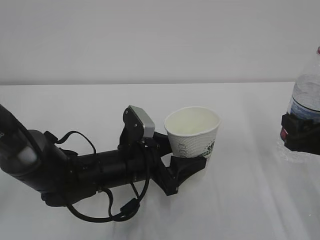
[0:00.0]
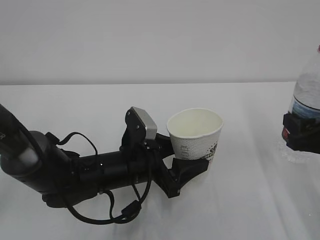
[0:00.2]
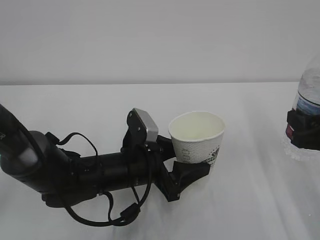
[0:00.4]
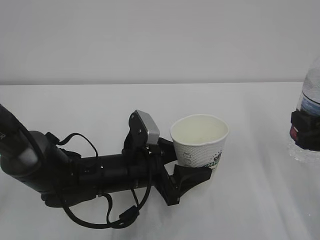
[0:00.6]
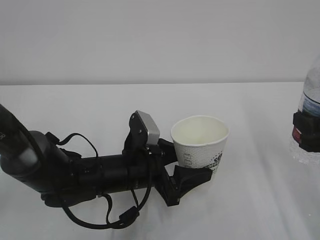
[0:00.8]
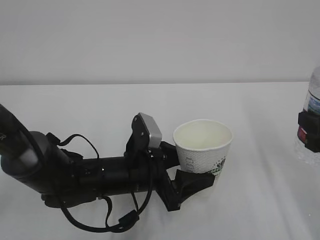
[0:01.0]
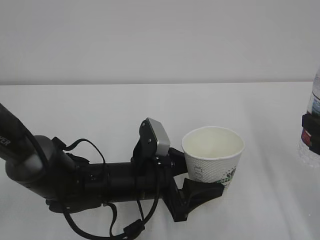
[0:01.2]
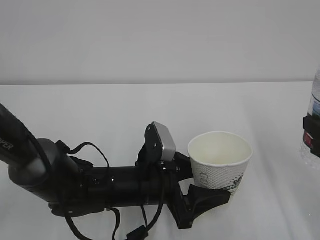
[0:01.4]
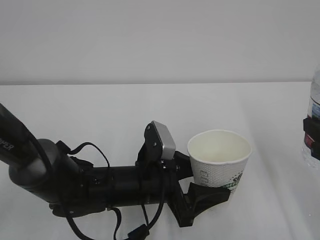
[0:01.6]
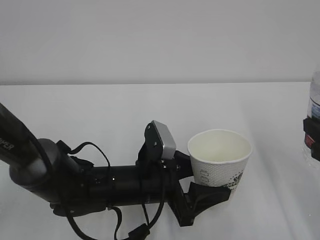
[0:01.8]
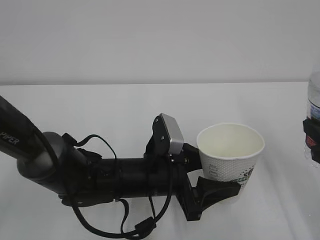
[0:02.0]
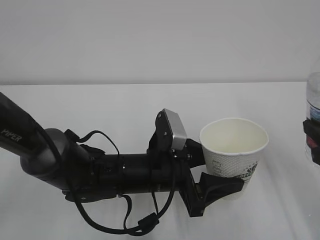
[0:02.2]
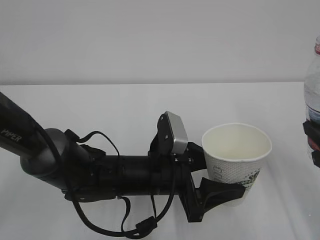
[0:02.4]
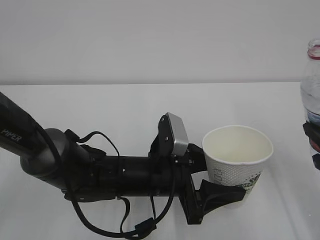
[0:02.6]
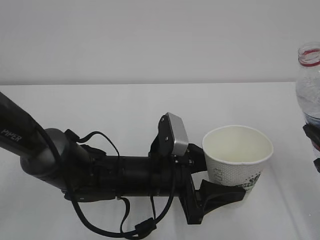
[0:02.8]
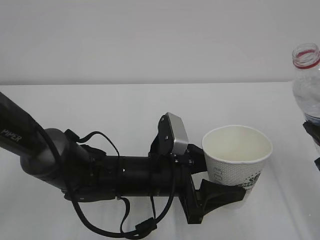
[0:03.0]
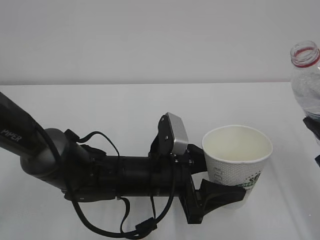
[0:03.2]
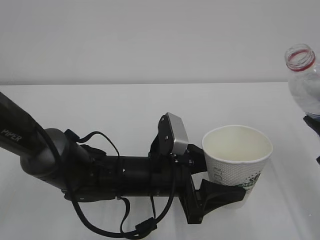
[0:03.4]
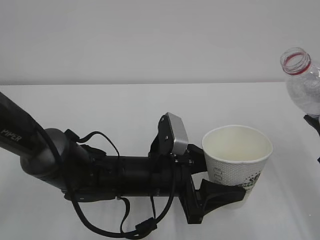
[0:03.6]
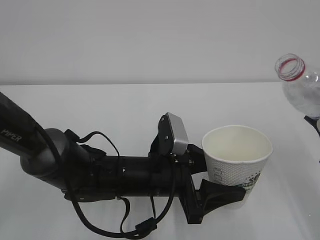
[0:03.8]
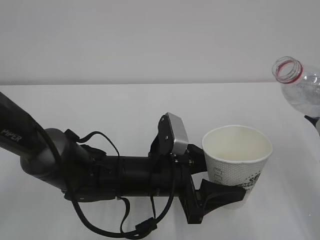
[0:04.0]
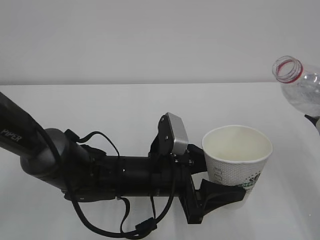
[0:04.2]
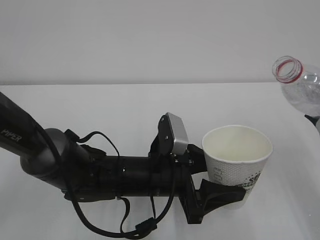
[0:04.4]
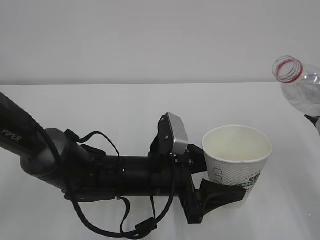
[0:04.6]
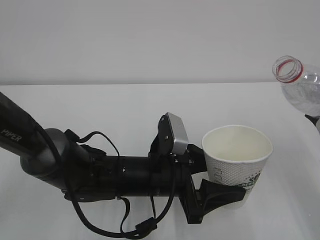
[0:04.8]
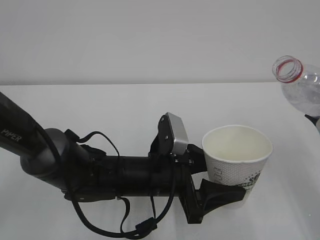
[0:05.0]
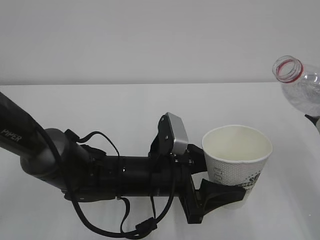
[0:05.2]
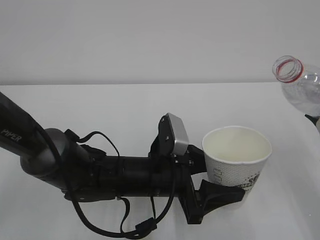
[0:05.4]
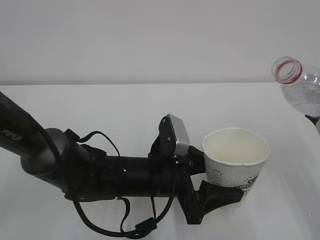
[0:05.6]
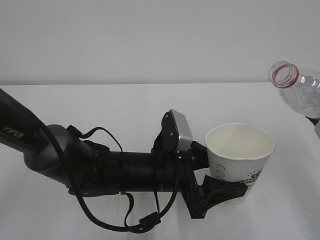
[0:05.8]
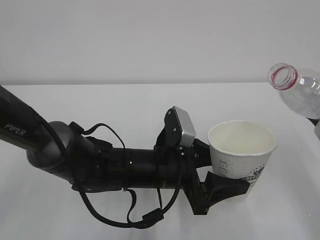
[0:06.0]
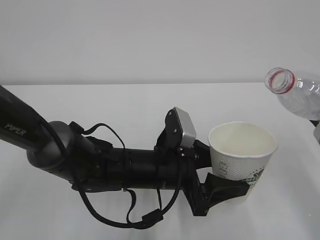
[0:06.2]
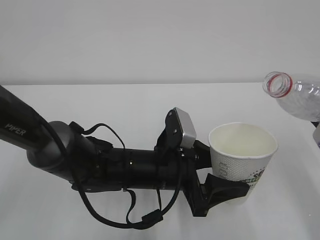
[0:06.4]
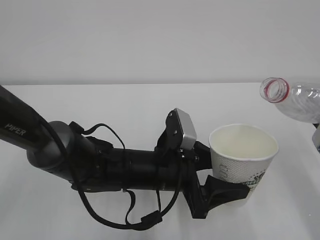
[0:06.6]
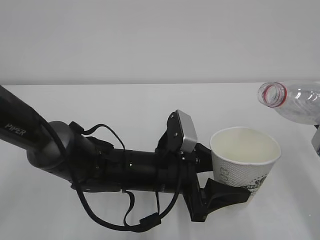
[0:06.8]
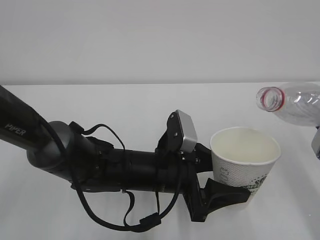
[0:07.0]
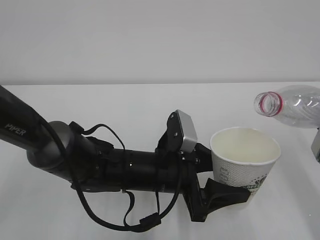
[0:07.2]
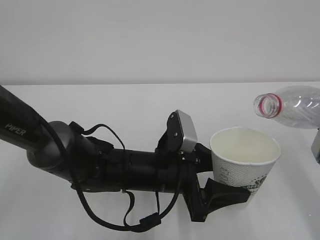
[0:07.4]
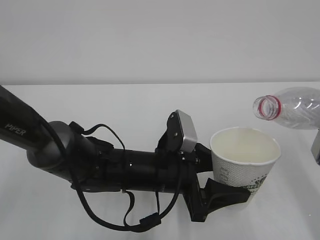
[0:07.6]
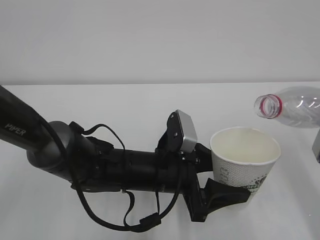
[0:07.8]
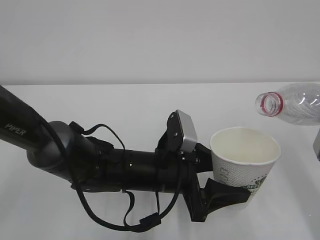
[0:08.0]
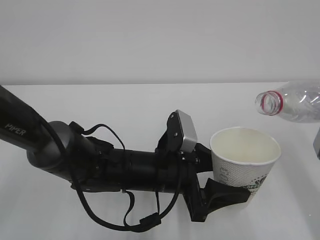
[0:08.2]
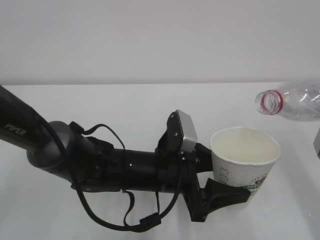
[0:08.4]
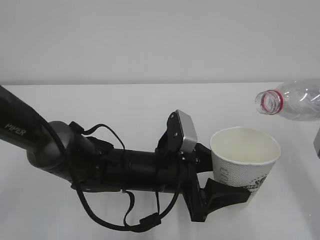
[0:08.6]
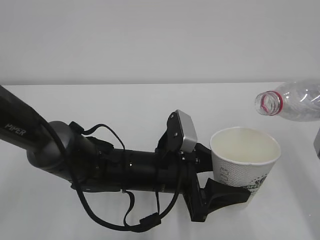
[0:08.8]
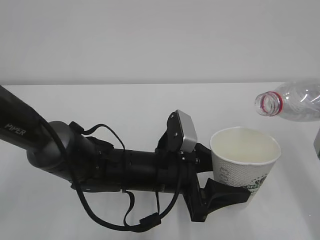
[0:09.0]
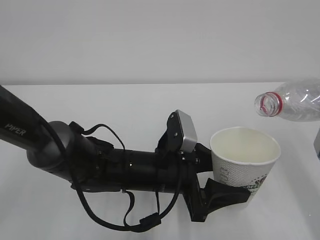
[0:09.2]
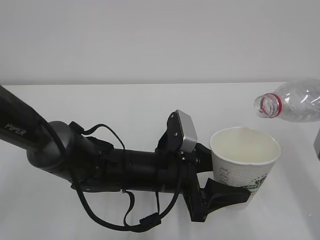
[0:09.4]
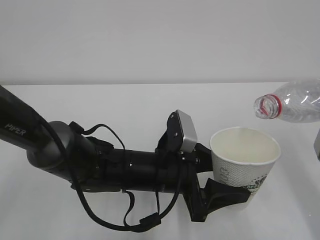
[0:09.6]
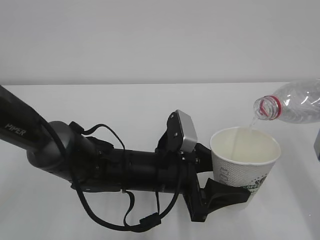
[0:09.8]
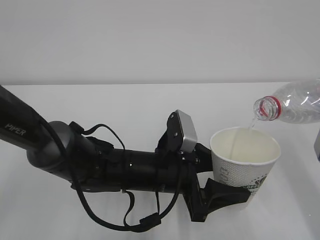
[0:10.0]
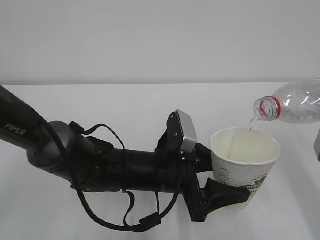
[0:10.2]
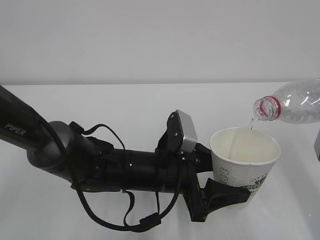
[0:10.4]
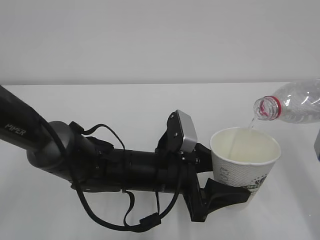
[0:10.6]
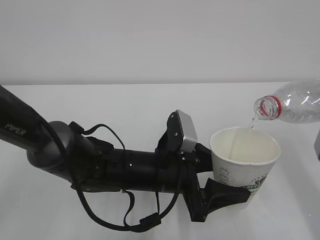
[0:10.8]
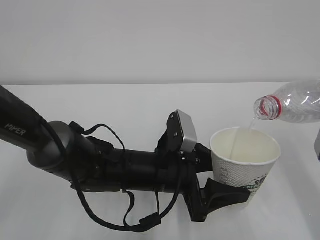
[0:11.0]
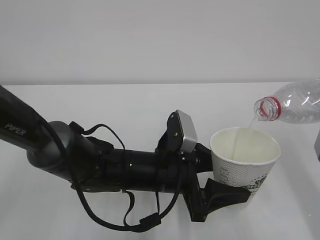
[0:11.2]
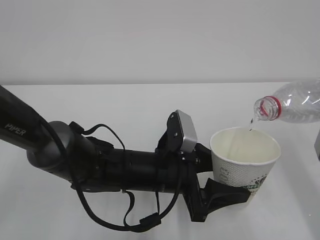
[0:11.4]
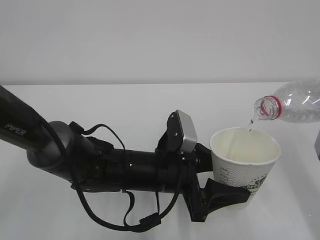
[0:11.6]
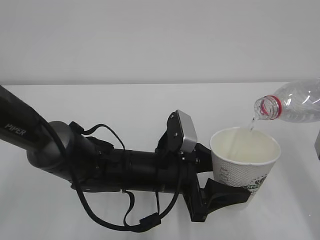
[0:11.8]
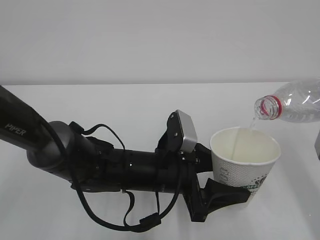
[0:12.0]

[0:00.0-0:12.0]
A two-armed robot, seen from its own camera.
0:00.0 to 0:01.6: The right gripper shifts by about 5 cm.
0:03.0 to 0:04.4: The grippers stay close to where they were, moving slightly.
0:04.4 to 0:06.0: Neither gripper changes place.
0:06.0 to 0:07.6: The grippers make only small movements.
0:07.6 to 0:09.0: The grippers move only a little.
0:09.0 to 0:12.0: Both grippers stay about where they are.

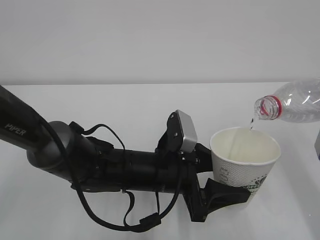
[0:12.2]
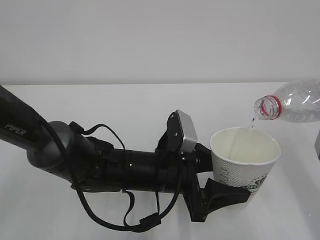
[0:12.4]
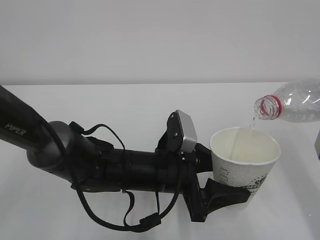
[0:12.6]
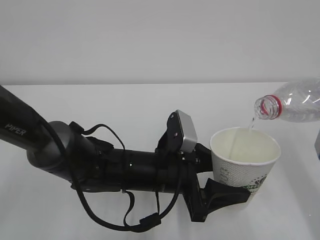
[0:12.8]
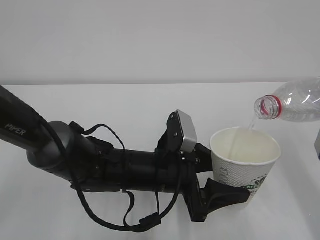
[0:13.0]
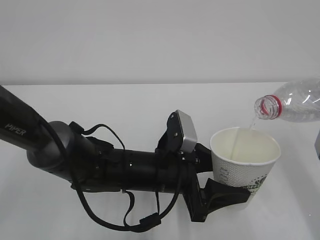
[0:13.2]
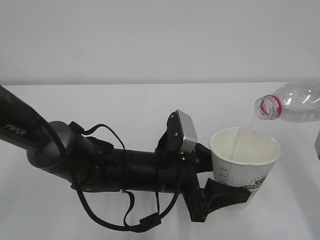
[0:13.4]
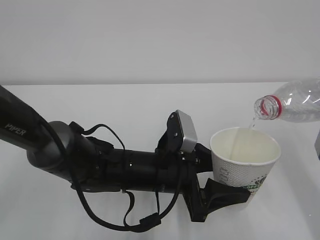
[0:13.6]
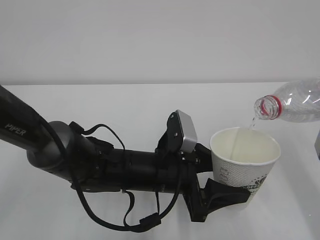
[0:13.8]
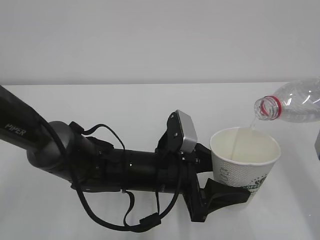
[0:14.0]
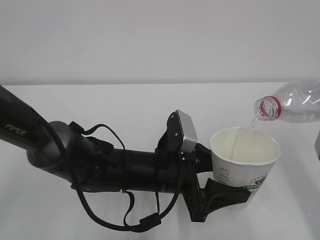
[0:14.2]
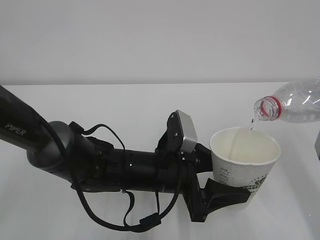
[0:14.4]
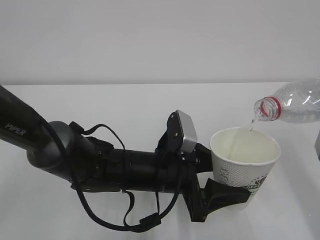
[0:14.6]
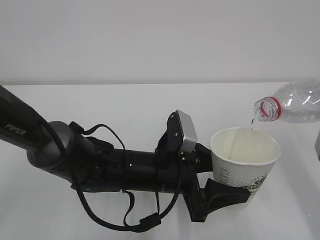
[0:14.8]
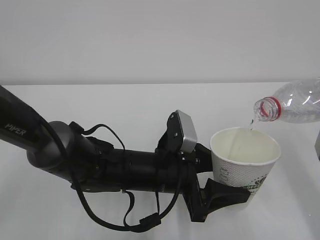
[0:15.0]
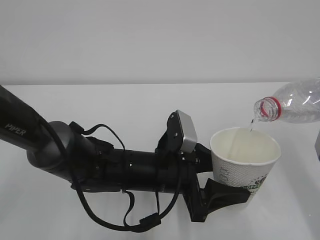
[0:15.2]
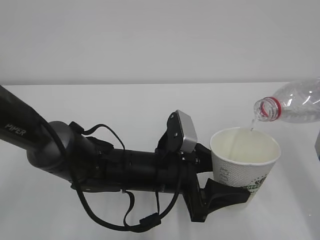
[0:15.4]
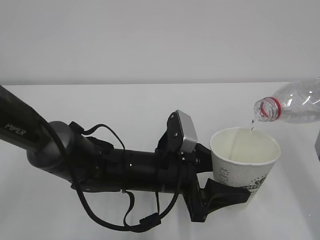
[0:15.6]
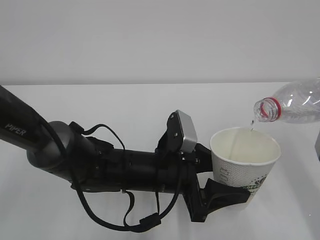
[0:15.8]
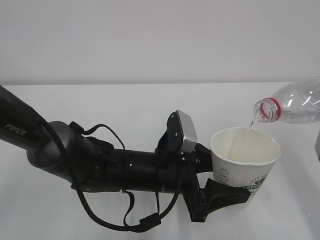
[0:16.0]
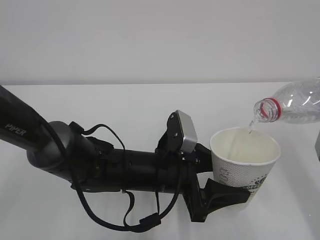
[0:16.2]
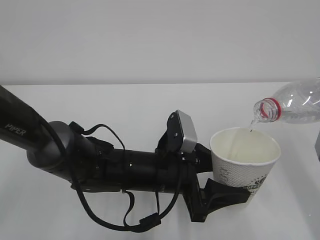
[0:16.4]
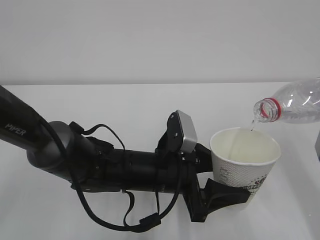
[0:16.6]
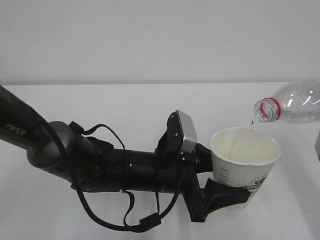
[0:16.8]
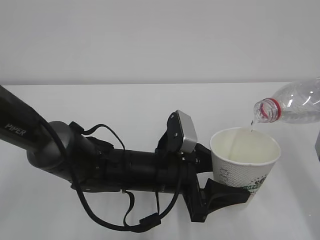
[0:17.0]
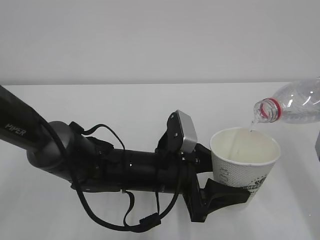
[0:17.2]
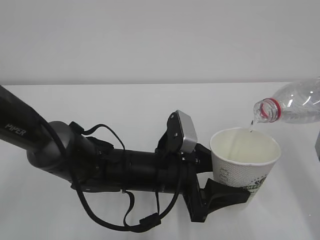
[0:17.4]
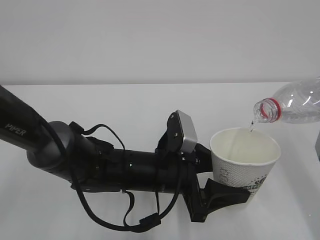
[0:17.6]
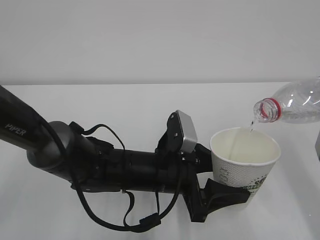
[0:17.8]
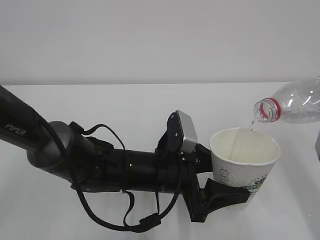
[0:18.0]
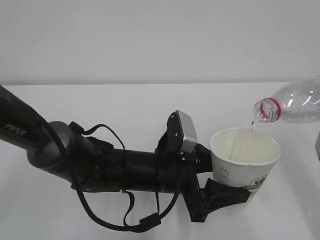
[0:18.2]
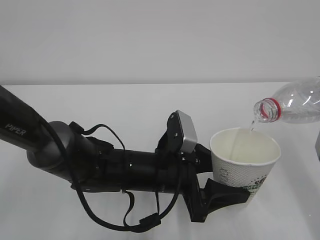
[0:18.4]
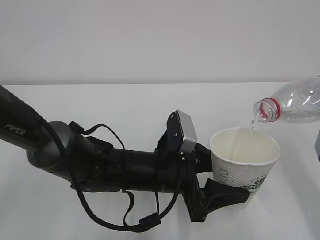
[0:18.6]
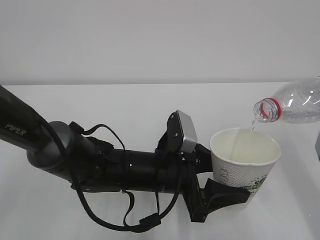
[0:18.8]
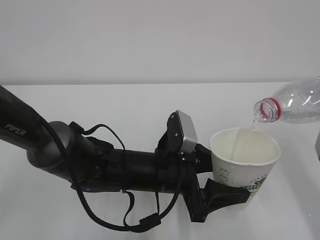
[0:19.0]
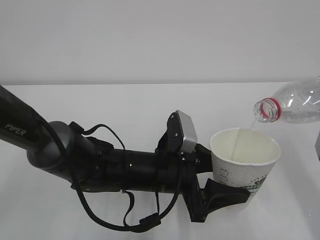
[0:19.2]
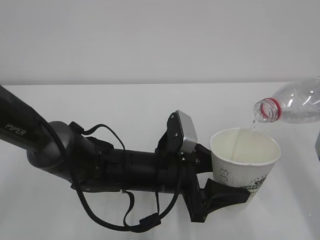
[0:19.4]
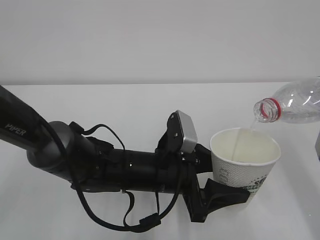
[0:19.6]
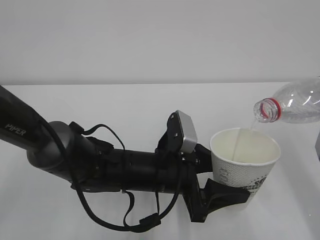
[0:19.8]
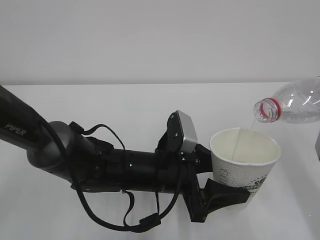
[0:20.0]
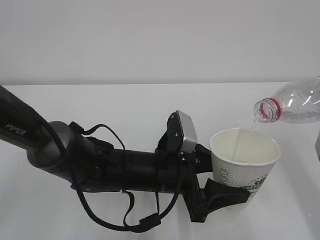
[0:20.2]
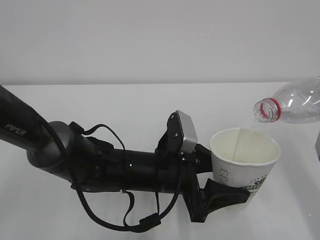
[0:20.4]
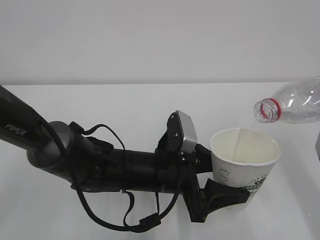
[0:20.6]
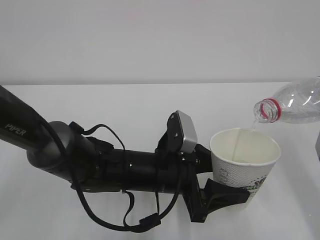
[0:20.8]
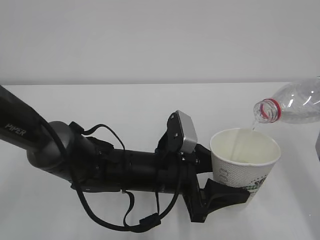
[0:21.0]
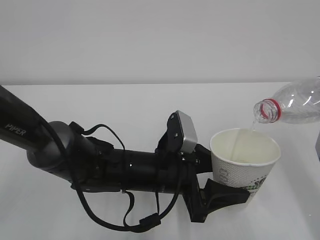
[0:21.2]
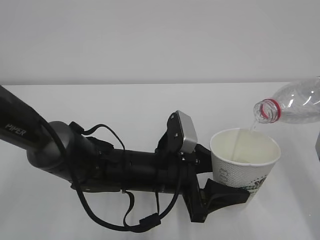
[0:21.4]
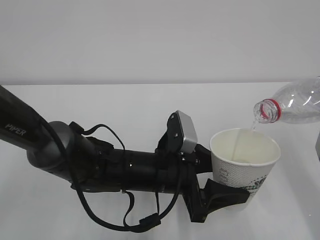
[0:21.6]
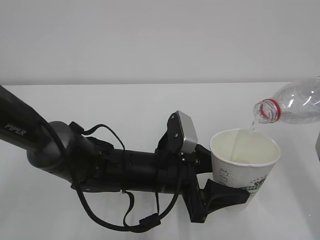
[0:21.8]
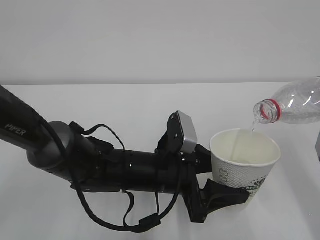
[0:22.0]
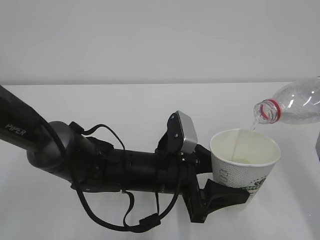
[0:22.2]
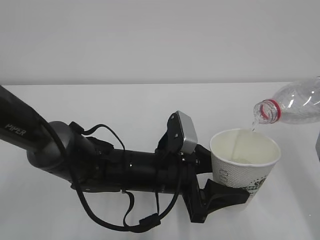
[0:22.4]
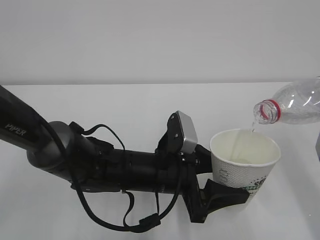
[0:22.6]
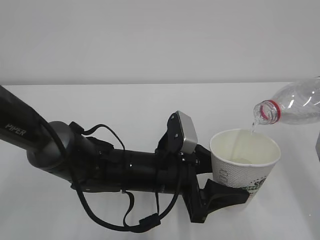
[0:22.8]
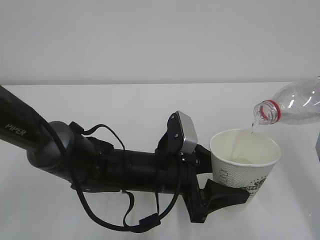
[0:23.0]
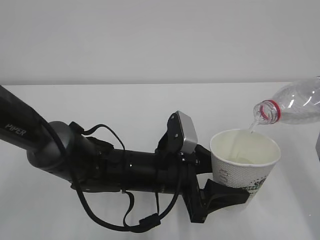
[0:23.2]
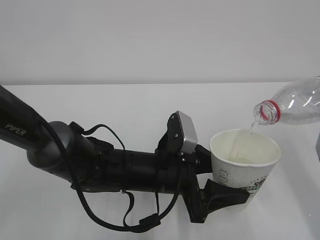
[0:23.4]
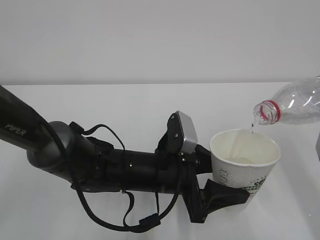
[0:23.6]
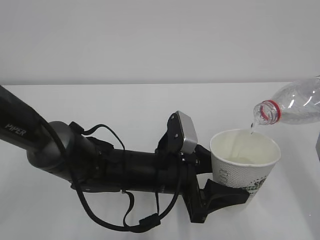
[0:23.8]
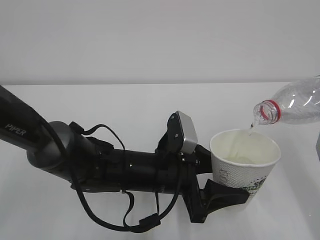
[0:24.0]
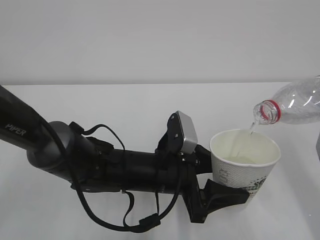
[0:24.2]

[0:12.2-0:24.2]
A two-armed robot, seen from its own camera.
0:12.2 to 0:22.6: Neither gripper changes place.
0:22.6 to 0:24.2: Neither gripper changes place.
